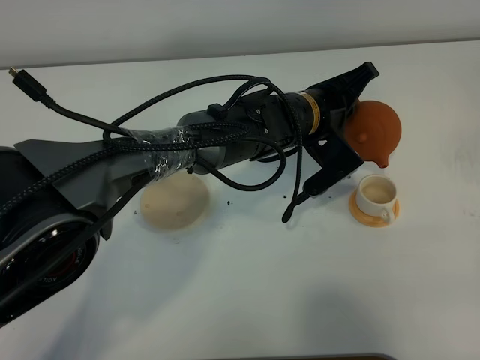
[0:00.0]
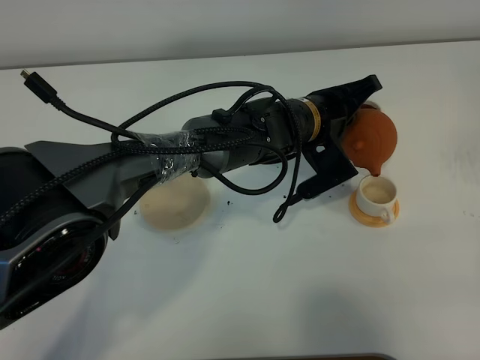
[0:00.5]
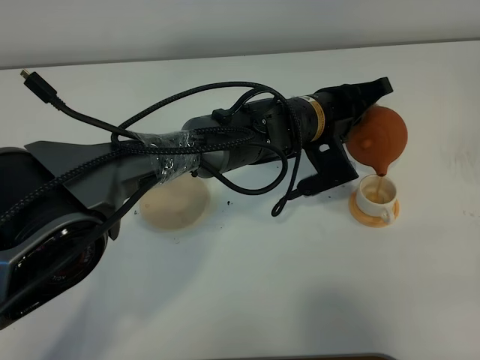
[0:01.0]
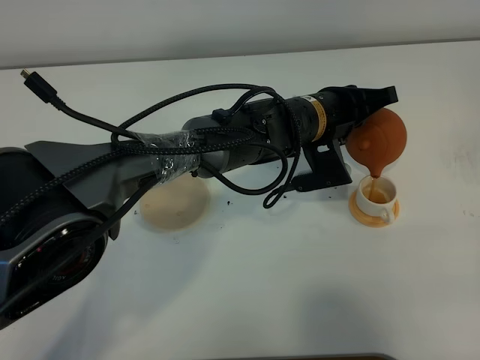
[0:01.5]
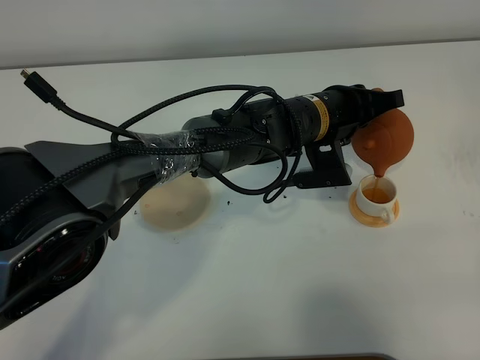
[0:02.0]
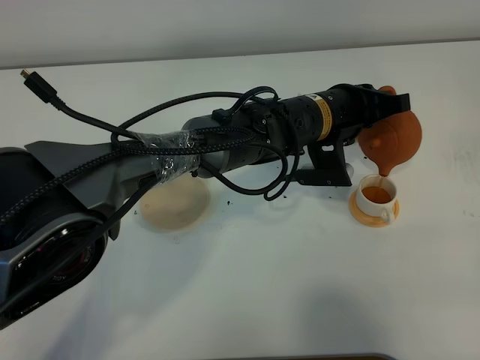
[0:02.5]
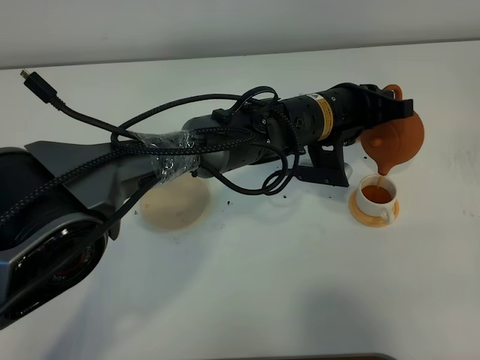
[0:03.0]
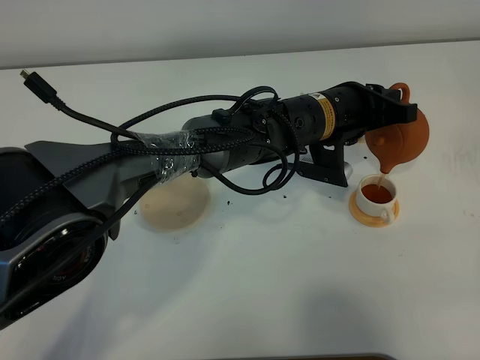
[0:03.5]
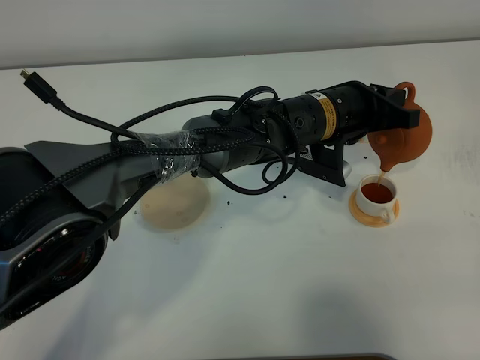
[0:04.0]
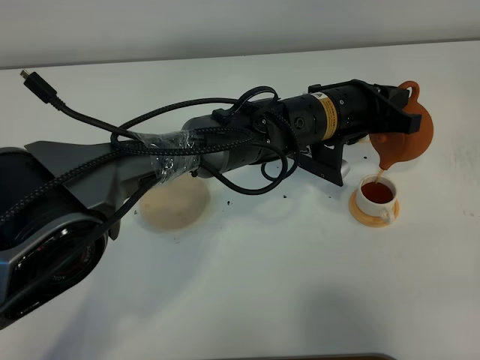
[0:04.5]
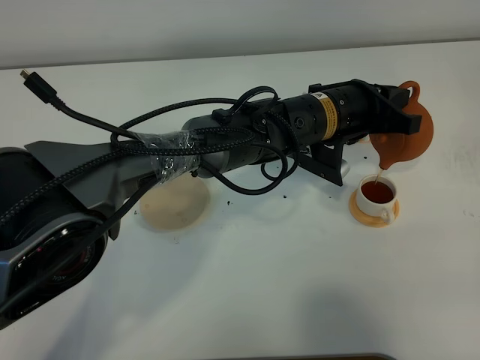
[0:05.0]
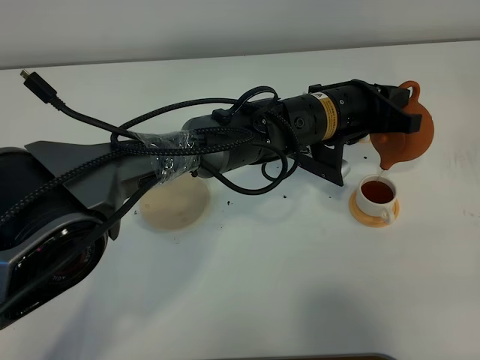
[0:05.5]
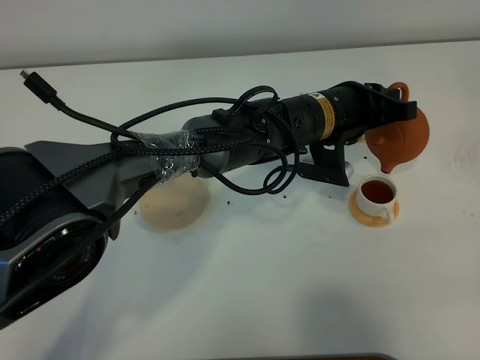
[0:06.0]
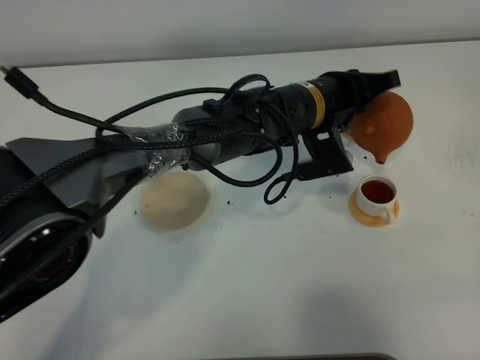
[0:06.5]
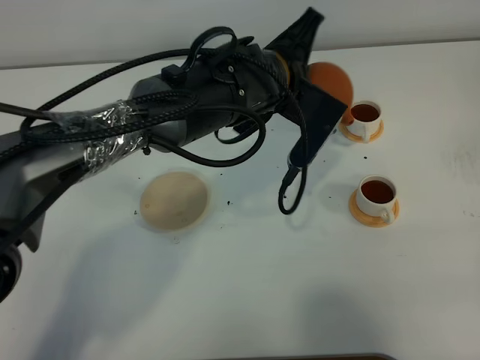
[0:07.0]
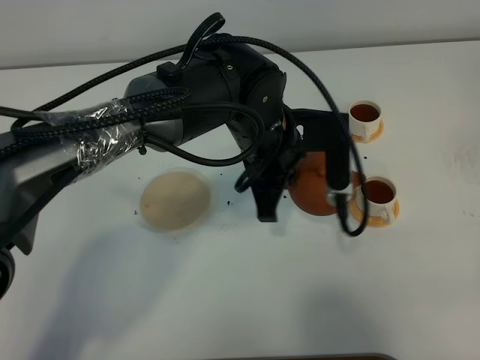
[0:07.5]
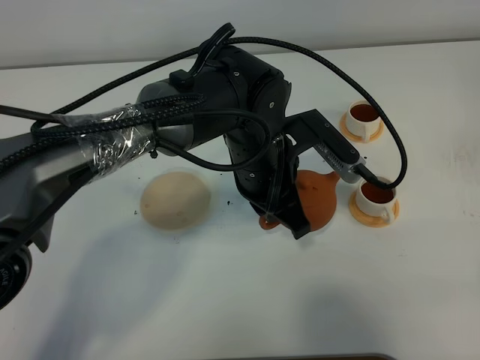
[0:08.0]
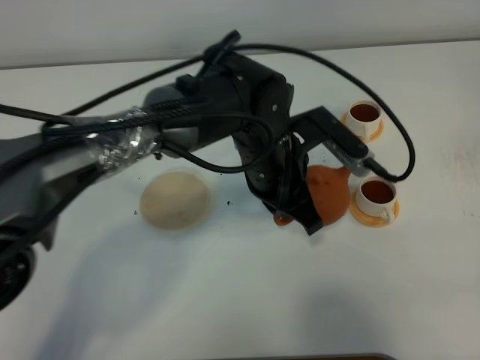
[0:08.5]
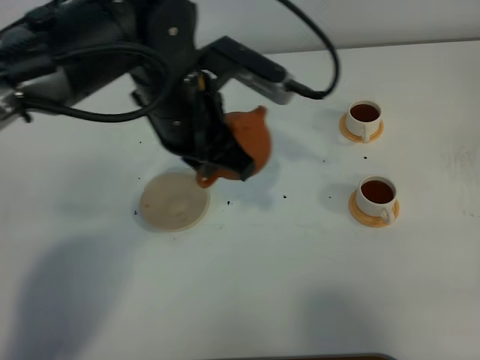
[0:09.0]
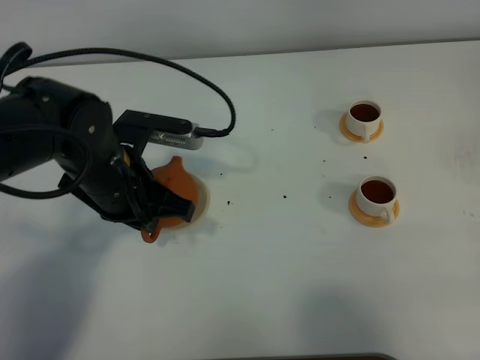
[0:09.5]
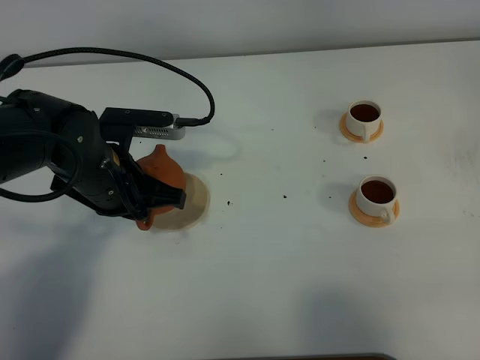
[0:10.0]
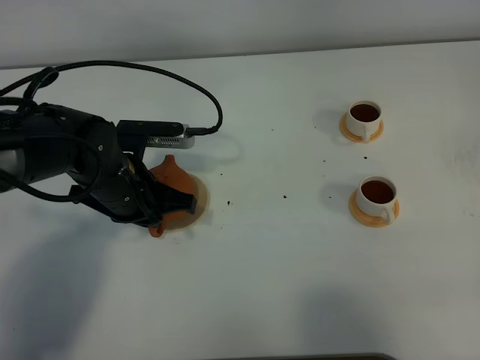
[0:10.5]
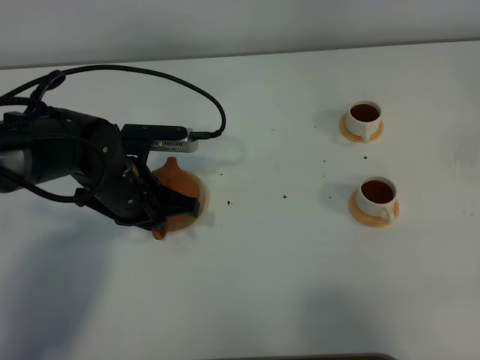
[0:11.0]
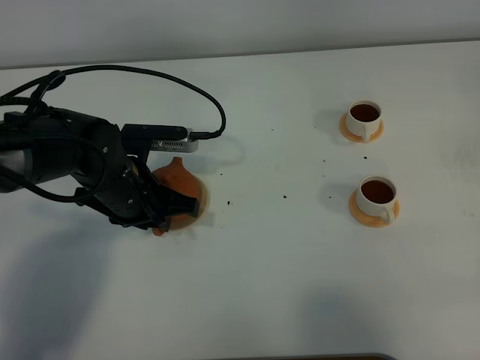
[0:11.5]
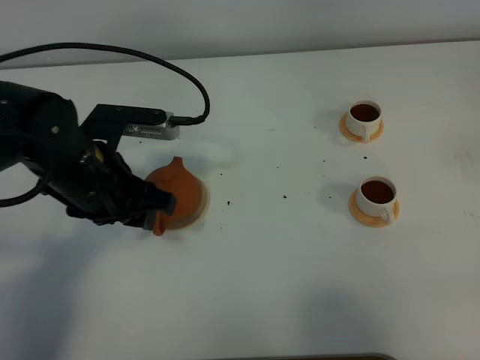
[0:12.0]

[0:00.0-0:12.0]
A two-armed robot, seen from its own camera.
Task of the whole recording: grasp the brown teapot and pour the tea into the two white teacups one by one, put the brown teapot back in its original place.
Step, 0:00.0 to 0:06.5: Pour tea into the teacup with the left gripper.
0:04.0 to 0:06.0: The grippers make only small movements.
0:06.0 to 0:08.0: The left gripper goes roughly 10 cm to the left and backward.
0:08.0 to 0:10.0: The left gripper heads to the left, covering approximately 20 cm.
0:10.0 to 0:12.0: The left gripper opens its fingers.

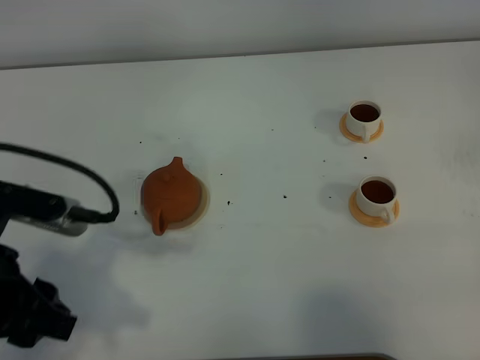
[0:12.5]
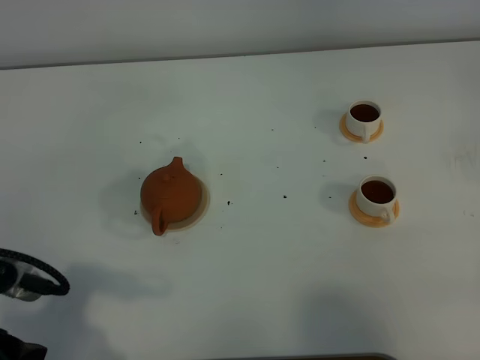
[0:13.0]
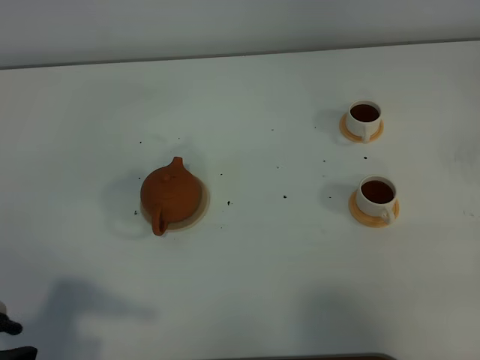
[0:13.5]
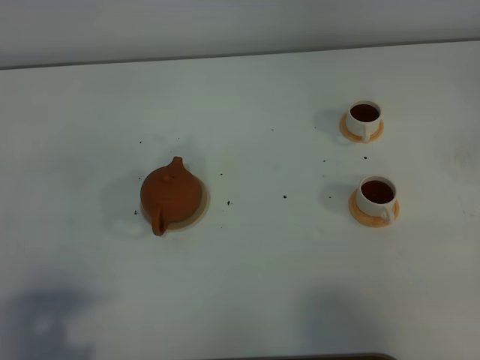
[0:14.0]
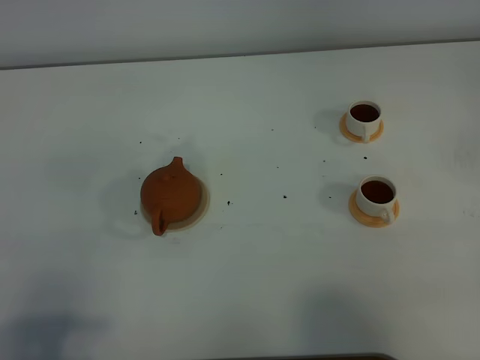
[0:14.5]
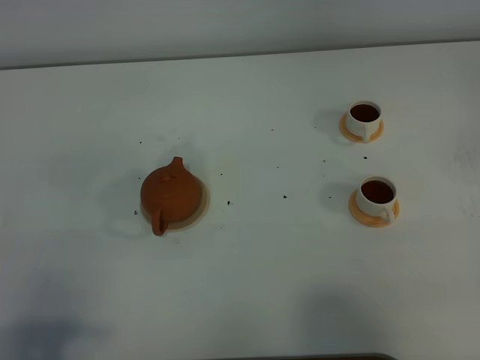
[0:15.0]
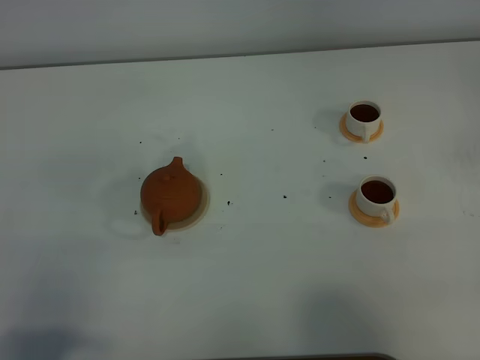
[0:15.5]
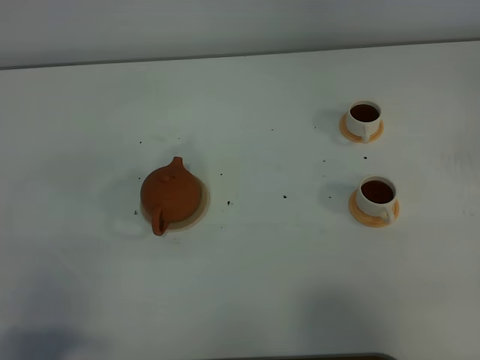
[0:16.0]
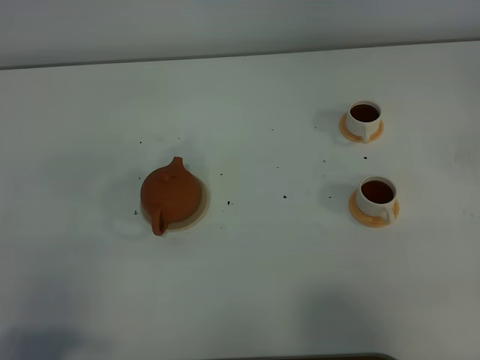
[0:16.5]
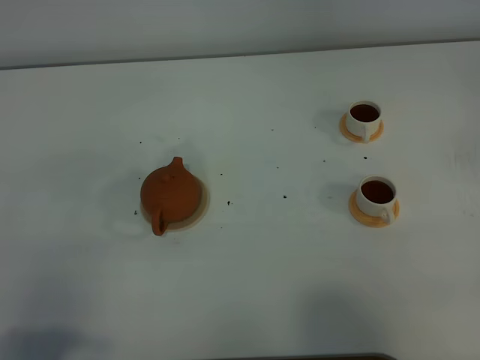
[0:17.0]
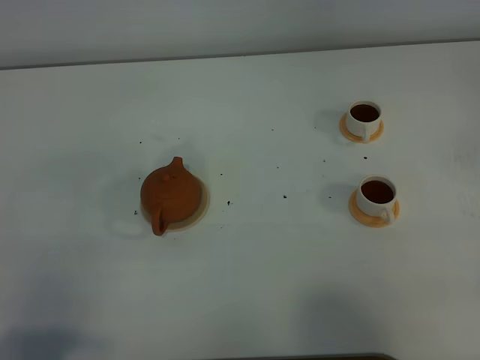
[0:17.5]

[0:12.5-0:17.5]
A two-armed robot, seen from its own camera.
Task of the whole recording: grasp the brown teapot and pour the tea into the two white teacups one by one, put the brown teapot back in its original place.
0:12.5 to 0:15.0: The left gripper moves backward and to the left, some 15 cm.
0:15.0 to 0:17.5: Both grippers stay put.

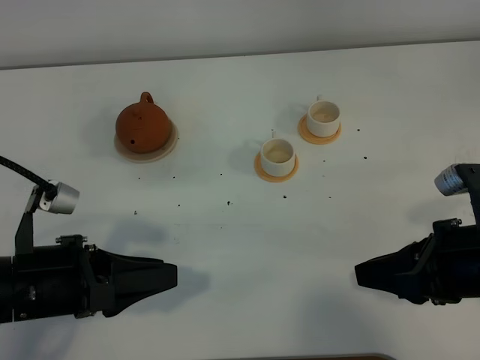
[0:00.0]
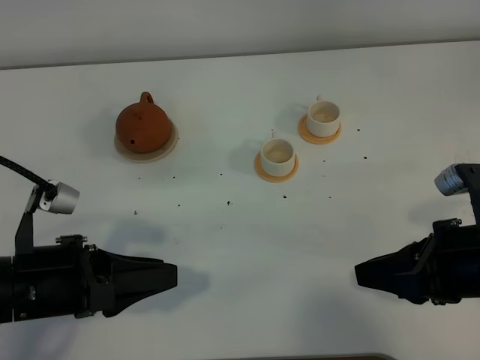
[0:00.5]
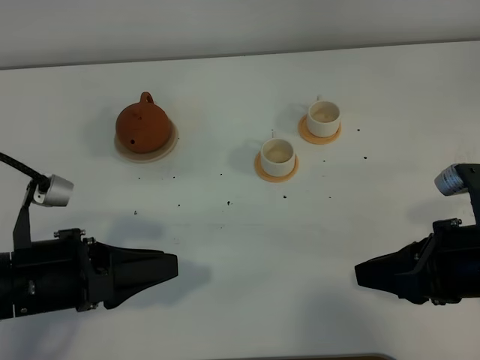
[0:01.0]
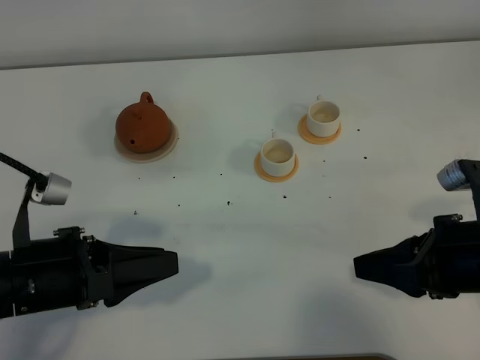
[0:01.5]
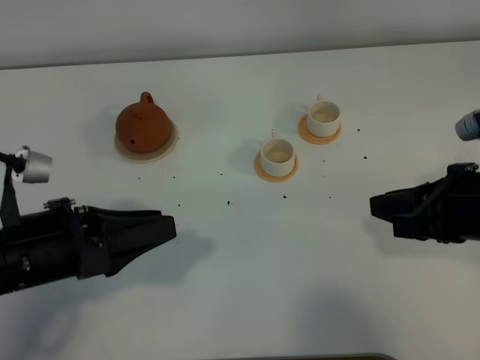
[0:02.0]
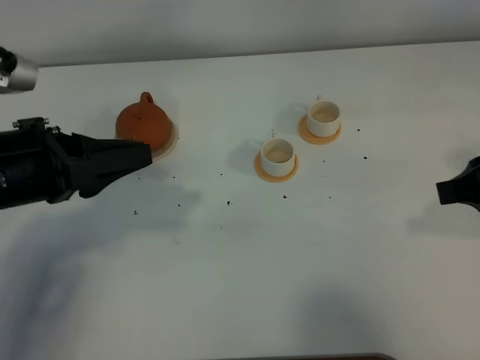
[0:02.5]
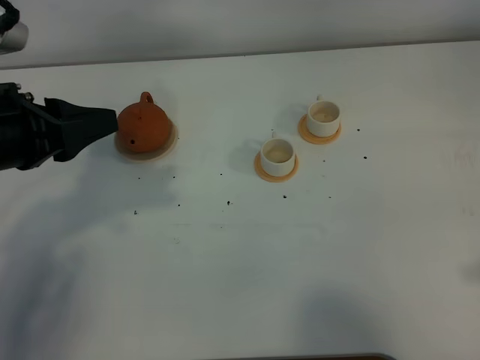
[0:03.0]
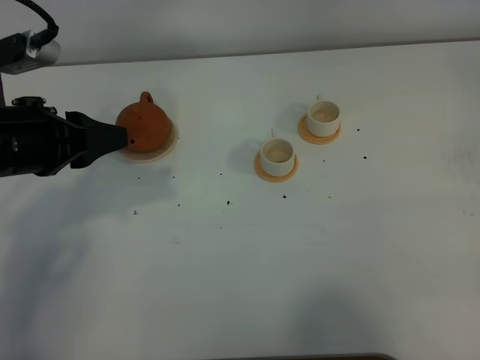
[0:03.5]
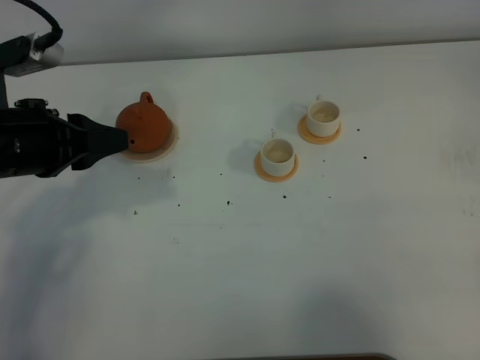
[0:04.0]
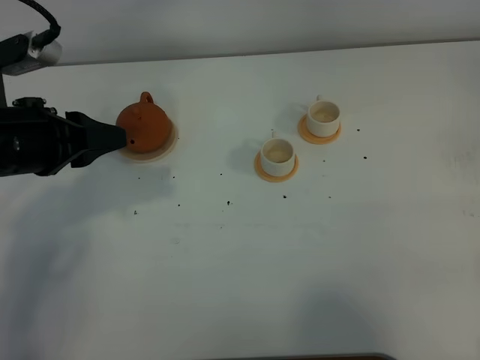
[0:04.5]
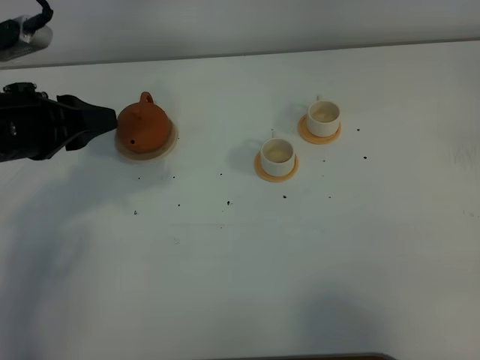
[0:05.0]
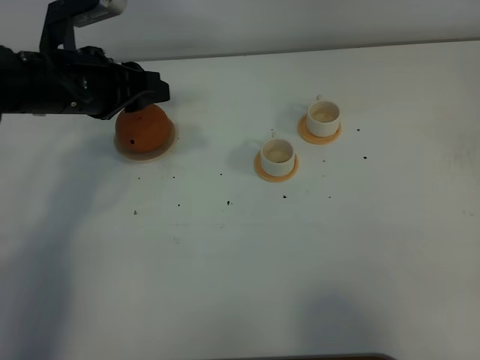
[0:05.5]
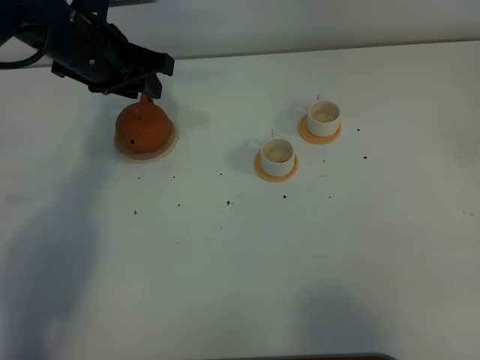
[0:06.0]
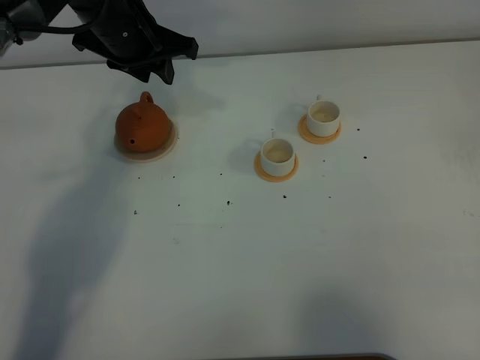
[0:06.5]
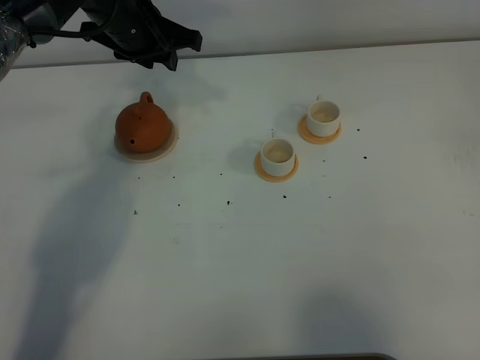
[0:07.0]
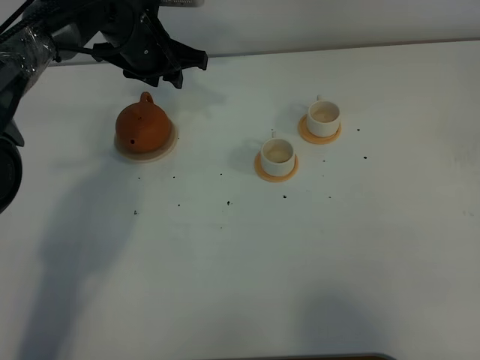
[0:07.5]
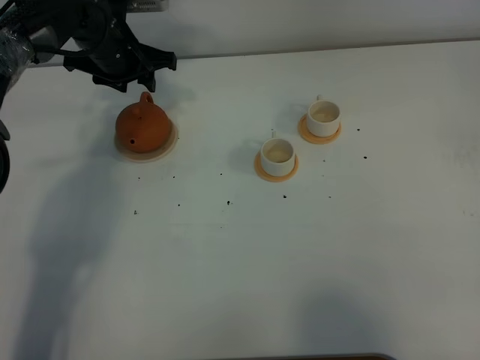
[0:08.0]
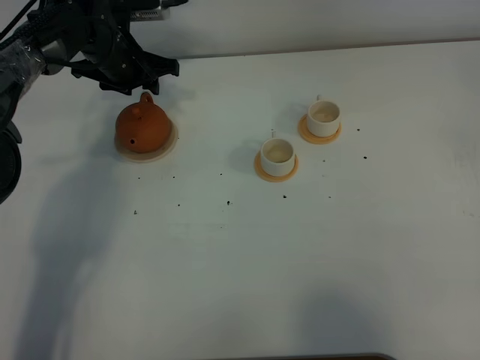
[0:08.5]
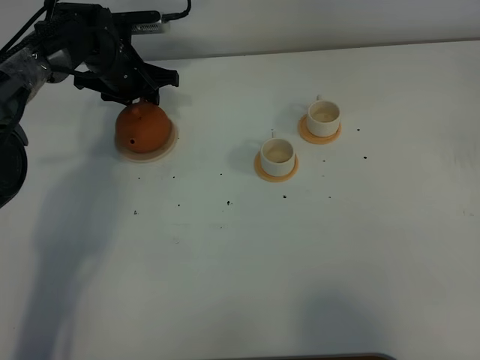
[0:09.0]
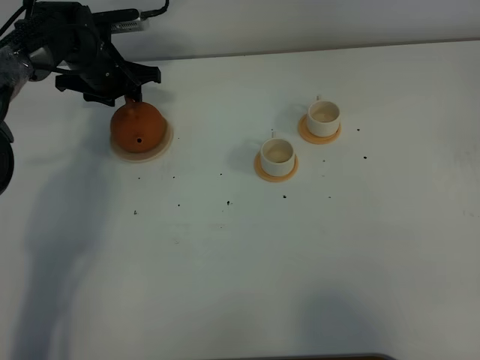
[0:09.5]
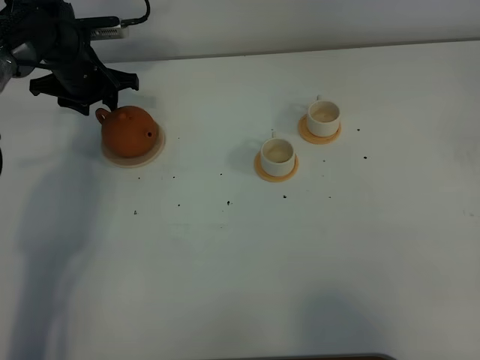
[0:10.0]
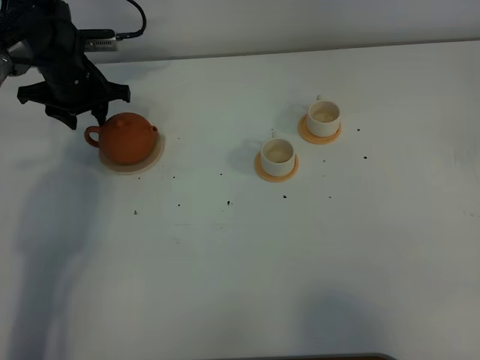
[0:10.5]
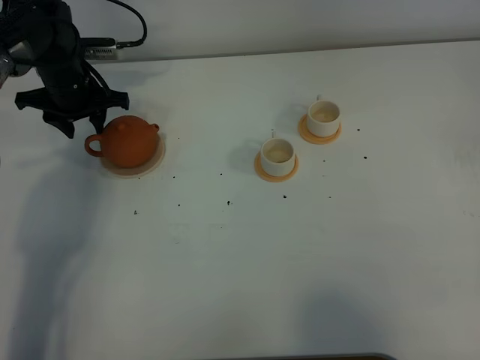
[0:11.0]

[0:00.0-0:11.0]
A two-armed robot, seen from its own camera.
Task of the whole recording: grasp the brown teapot and pour the tea into the two white teacups one by one, put the brown teapot back in its original place.
0:00.0 to 0:02.0: The right gripper changes place by approximately 5 cm.
0:02.0 to 0:03.5: The left gripper heads forward, covering about 10 cm; the right gripper moves backward and to the right, about 20 cm.
0:03.5 to 0:05.5: The left gripper goes some 10 cm forward.
0:05.5 to 0:07.5: The left gripper heads forward, covering about 15 cm.
0:07.5 to 0:09.0: The left gripper is displaced downward and to the left by approximately 10 cm.
0:09.0 to 0:11.0: The left gripper goes roughly 5 cm to the left.
